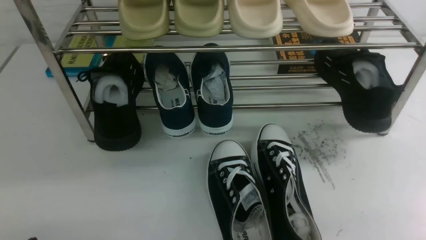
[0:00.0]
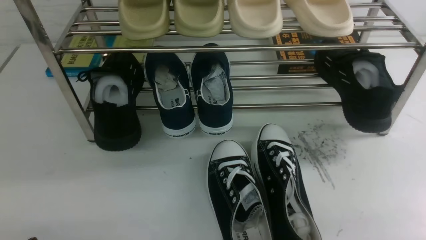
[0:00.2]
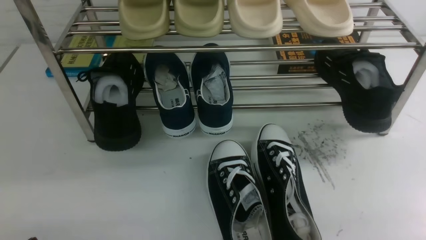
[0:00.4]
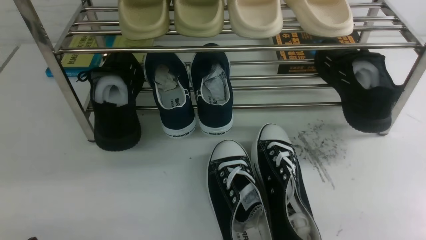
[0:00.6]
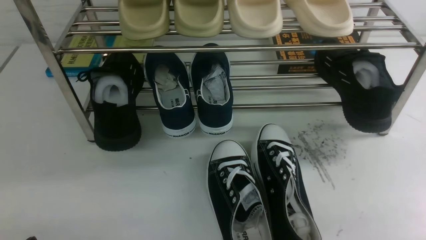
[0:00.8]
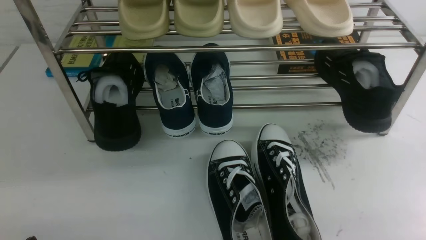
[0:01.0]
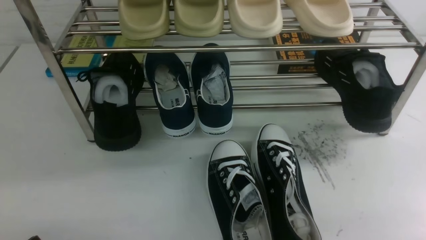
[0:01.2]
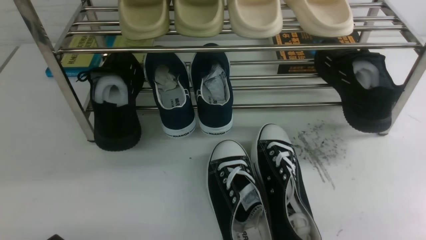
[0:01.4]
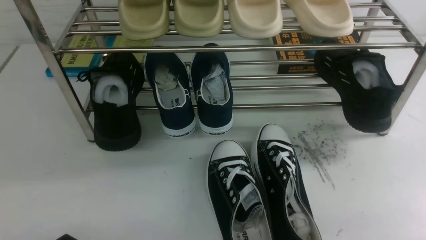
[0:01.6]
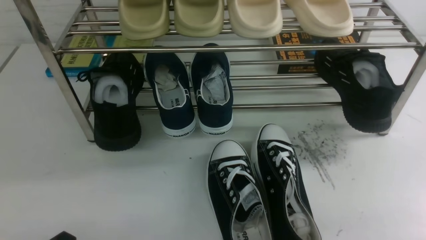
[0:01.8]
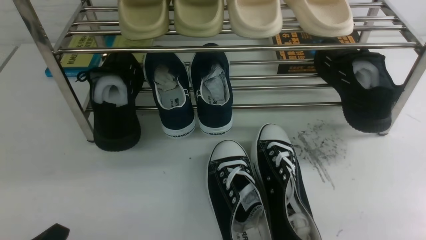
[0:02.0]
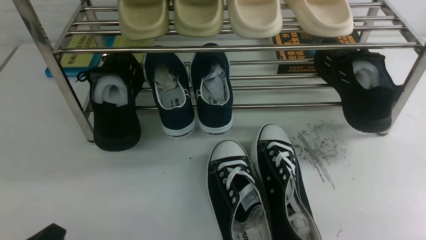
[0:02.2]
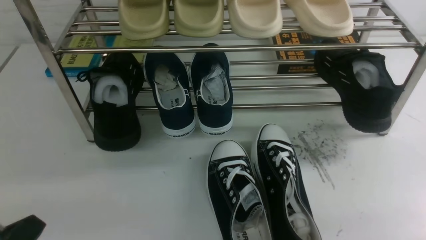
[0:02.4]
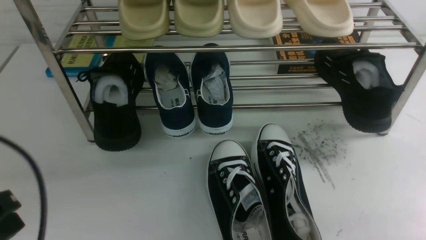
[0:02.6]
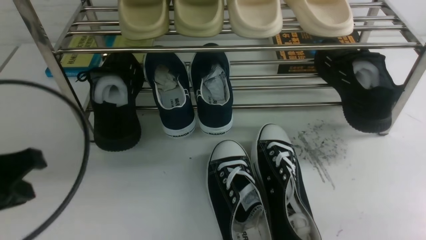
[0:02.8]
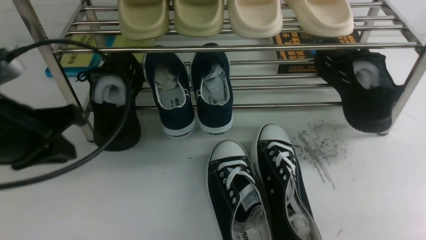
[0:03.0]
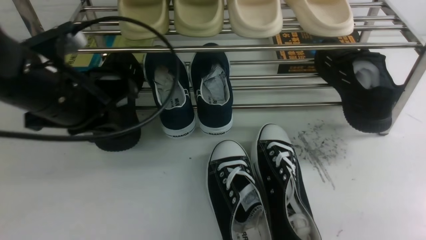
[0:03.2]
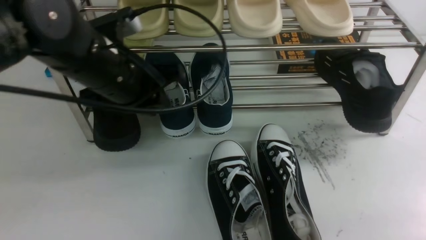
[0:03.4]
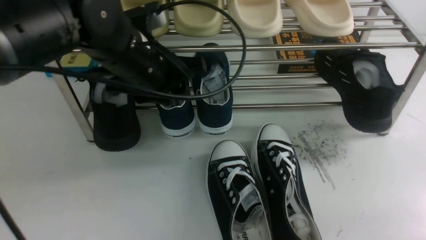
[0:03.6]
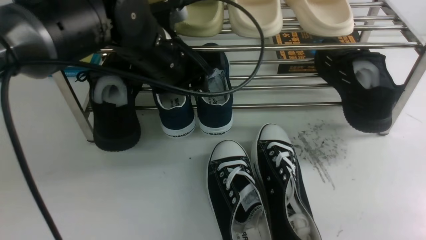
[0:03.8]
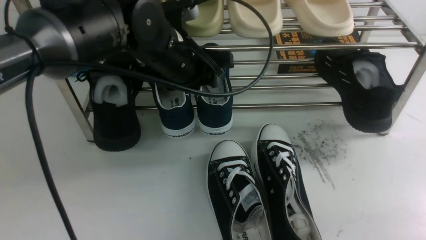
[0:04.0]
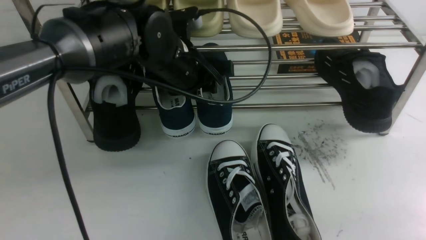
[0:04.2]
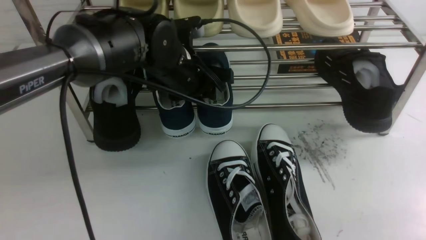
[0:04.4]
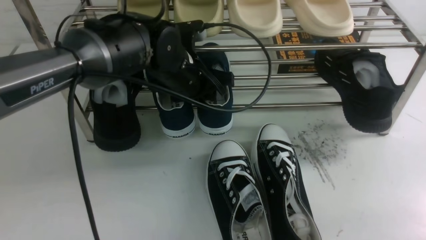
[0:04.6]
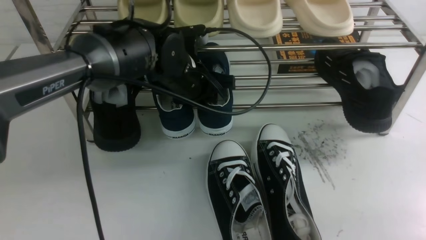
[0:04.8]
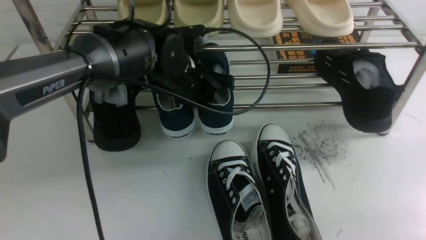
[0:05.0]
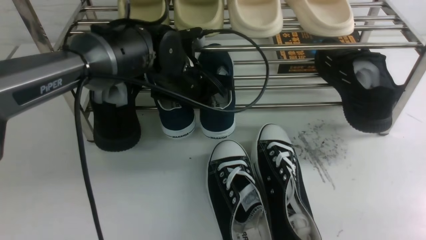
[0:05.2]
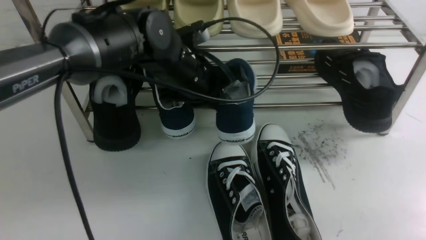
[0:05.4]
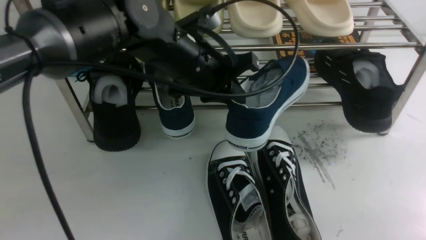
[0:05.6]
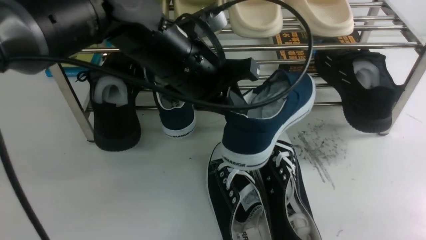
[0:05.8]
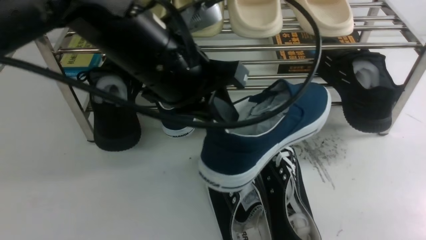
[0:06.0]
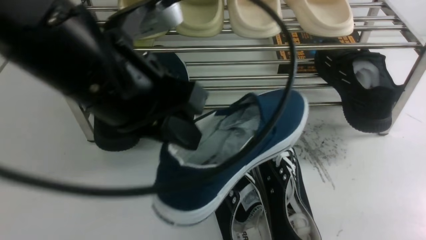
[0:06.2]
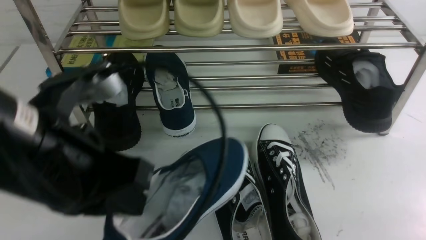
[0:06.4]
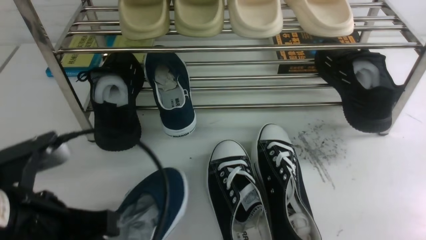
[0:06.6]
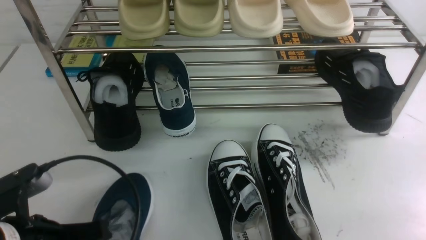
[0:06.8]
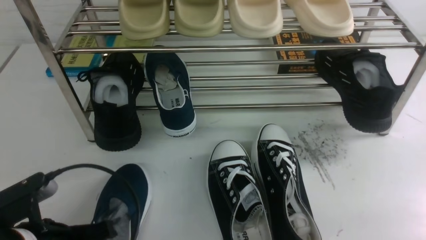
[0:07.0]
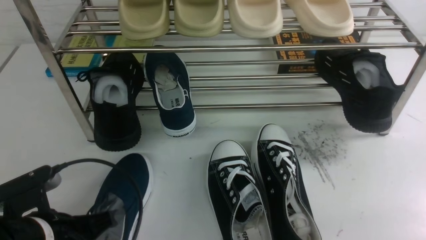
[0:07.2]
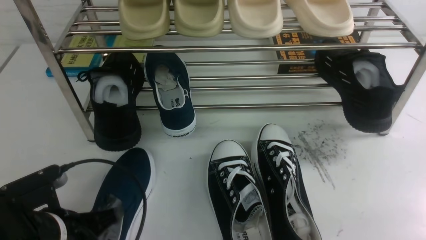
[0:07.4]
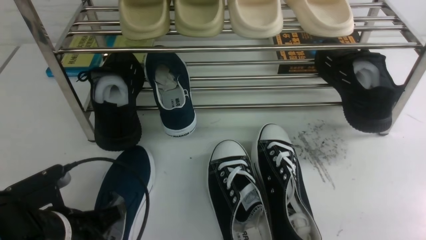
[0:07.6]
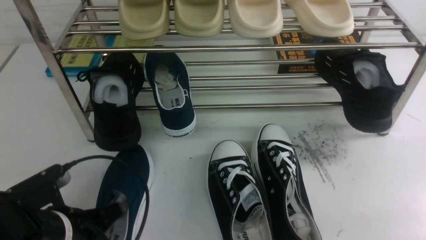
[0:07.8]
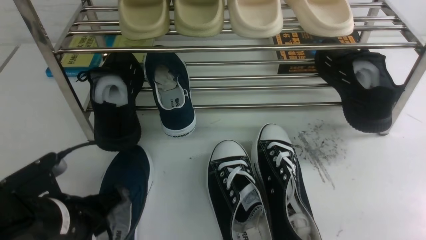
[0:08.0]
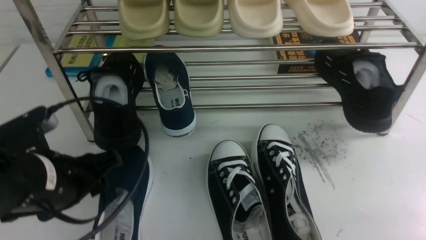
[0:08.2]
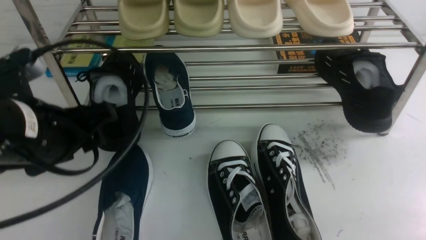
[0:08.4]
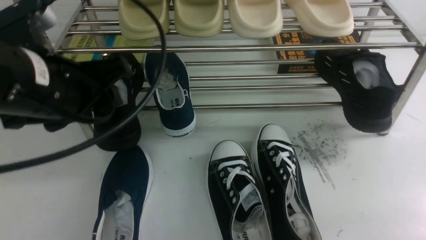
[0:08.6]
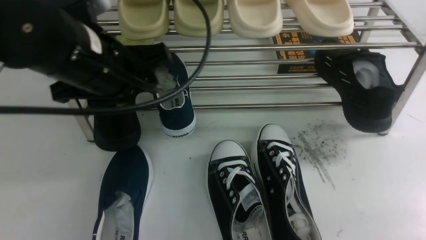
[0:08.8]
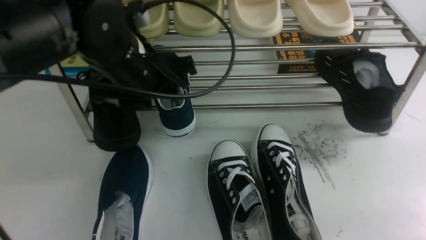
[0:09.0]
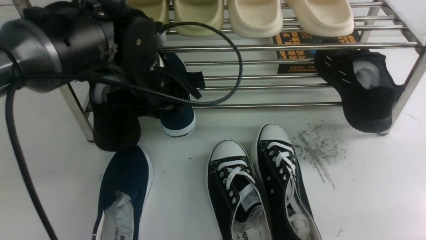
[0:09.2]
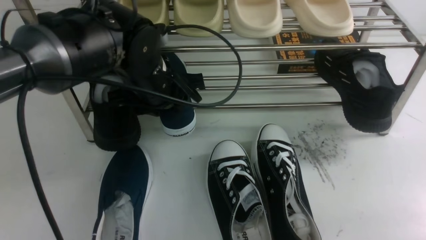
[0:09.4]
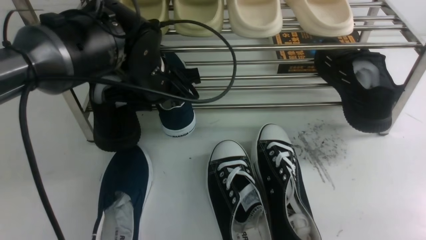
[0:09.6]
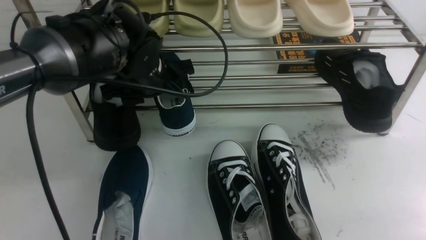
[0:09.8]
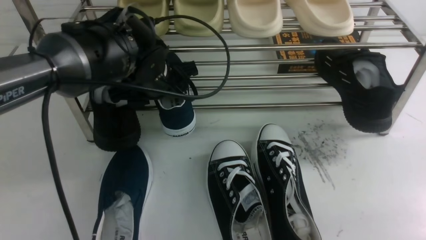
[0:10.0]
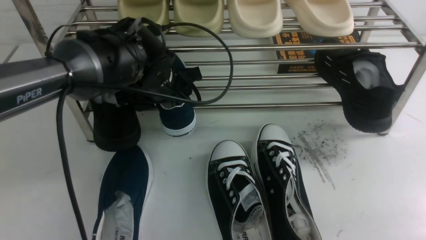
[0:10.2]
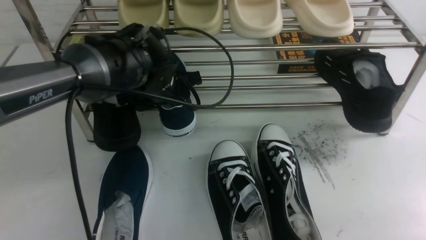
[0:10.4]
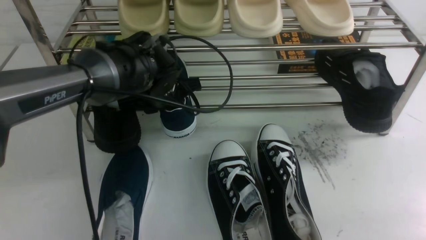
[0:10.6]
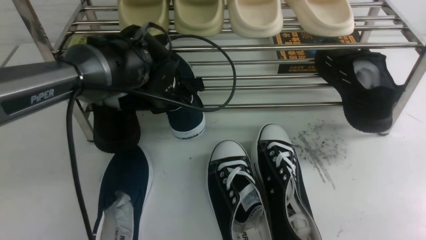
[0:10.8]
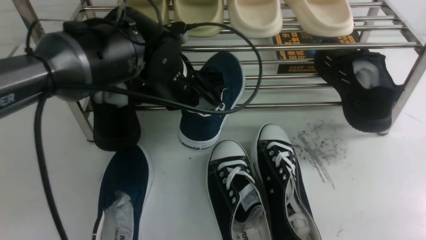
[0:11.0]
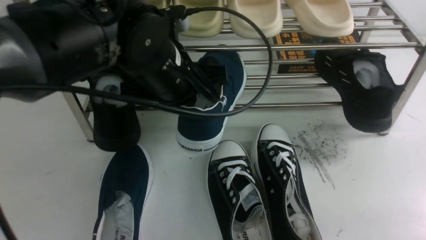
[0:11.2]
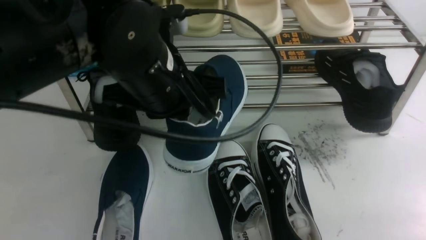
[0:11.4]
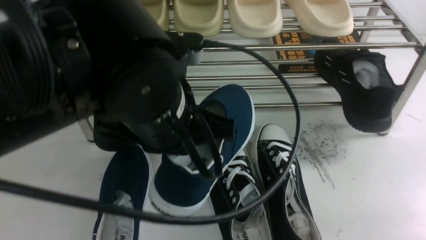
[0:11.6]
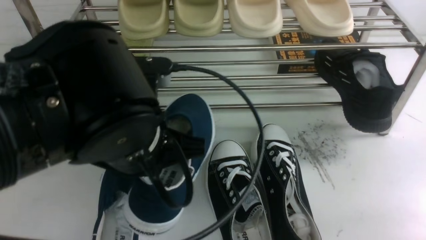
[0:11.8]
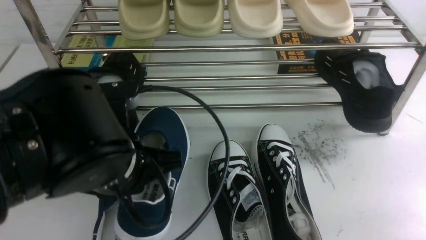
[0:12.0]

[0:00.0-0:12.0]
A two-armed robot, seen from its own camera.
Step, 0:00.0 to 0:05.6: use the left arm to clamp a shoe in the middle of the shoe rack.
Step, 0:05.8 to 0:08.2: Use your left arm to remove the clamped shoe from the shoe rack and put it down.
Step, 0:08.4 to 0:11.0: use the left arm to clamp a shoe on the left side of the shoe rack.
0:01.6 to 0:03.0: The left gripper heads upward and forward, covering approximately 20 cm.
0:03.0 to 0:04.4: The left gripper shifts some 20 cm to the right and forward, and opens its fingers.
0:04.4 to 0:06.0: The left gripper shifts roughly 15 cm backward and upward, and closes up.
0:06.0 to 0:07.6: The left gripper shifts approximately 25 cm downward, to the left and backward.
0:07.6 to 0:09.0: The left gripper goes about 20 cm upward, forward and to the right, and opens.
0:09.0 to 0:10.4: The left gripper heads downward and forward, covering approximately 10 cm.
0:10.4 to 0:12.0: The left gripper travels backward by roughly 20 cm, and closes up.

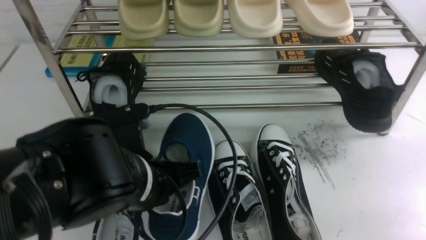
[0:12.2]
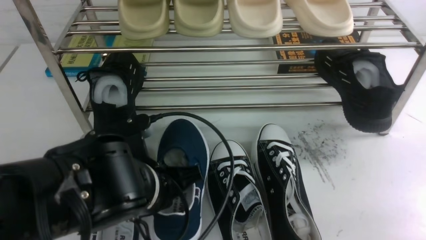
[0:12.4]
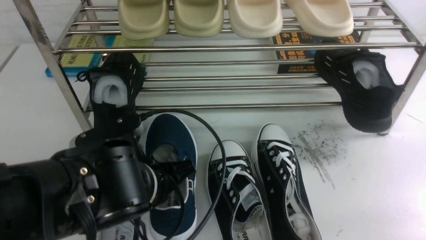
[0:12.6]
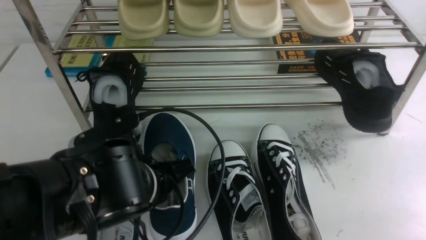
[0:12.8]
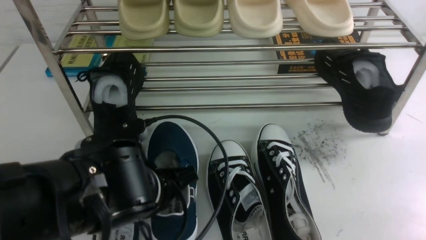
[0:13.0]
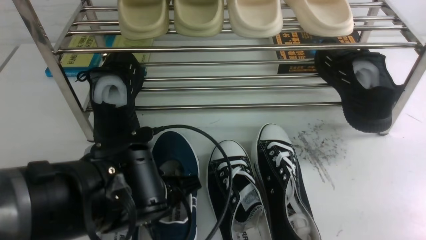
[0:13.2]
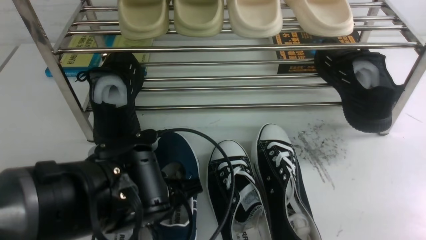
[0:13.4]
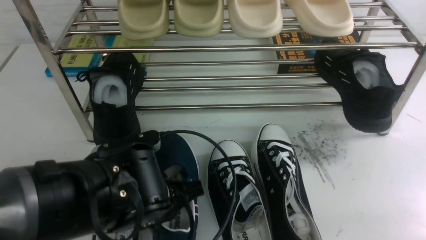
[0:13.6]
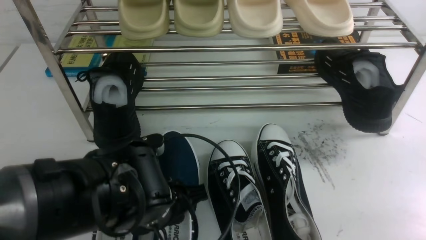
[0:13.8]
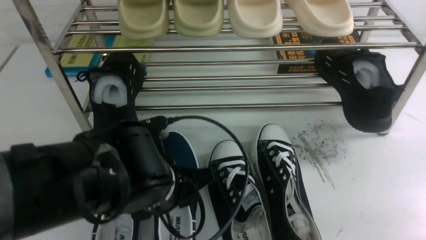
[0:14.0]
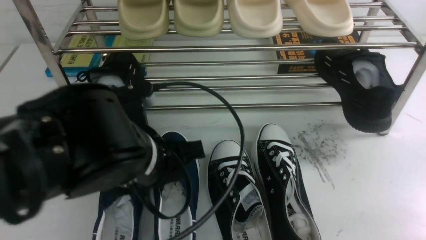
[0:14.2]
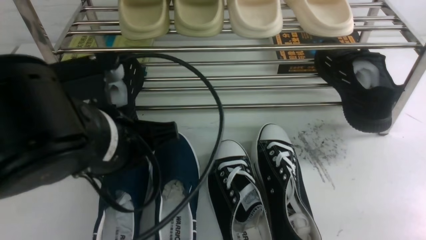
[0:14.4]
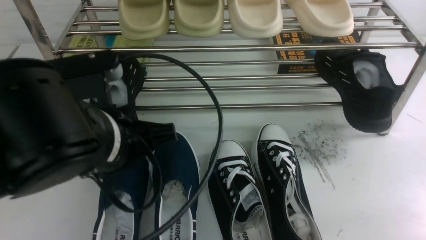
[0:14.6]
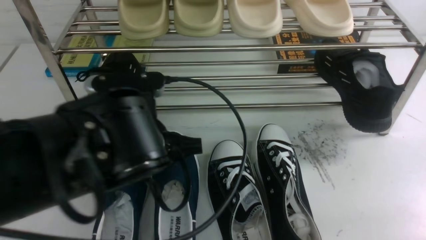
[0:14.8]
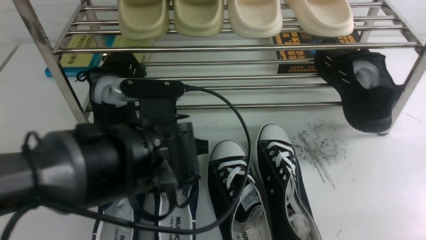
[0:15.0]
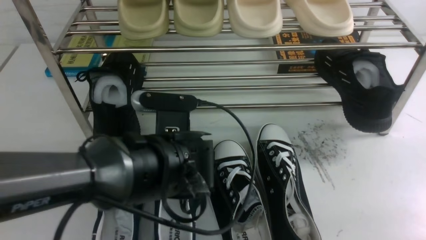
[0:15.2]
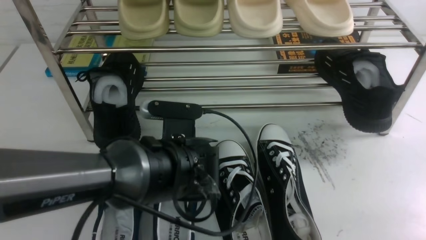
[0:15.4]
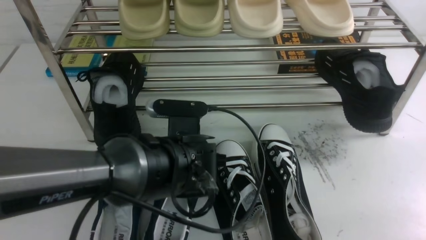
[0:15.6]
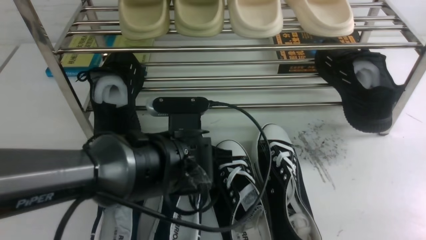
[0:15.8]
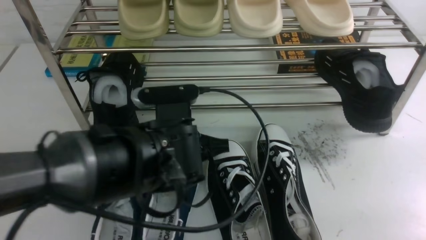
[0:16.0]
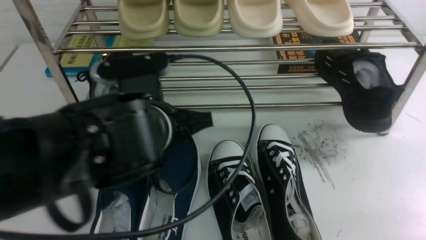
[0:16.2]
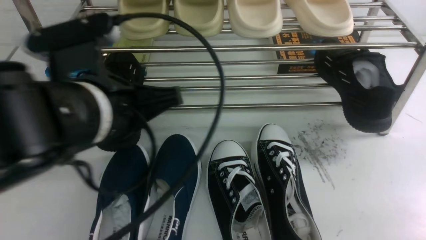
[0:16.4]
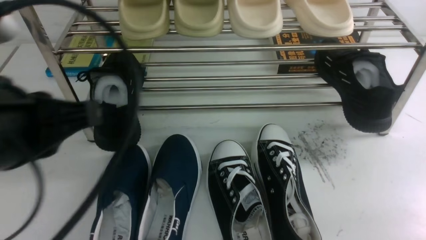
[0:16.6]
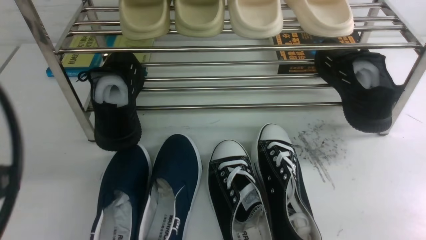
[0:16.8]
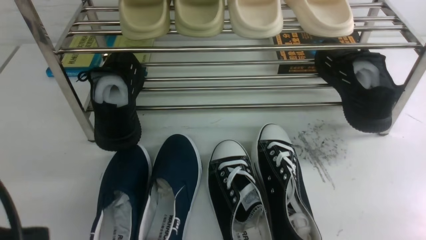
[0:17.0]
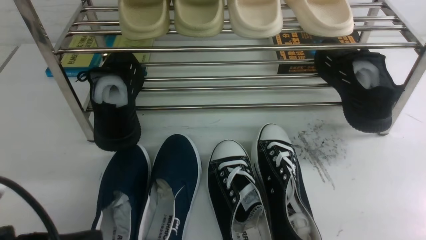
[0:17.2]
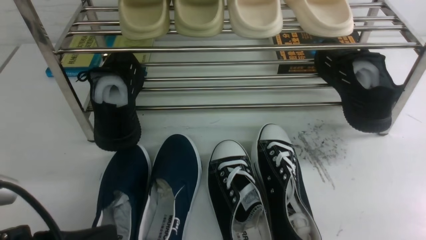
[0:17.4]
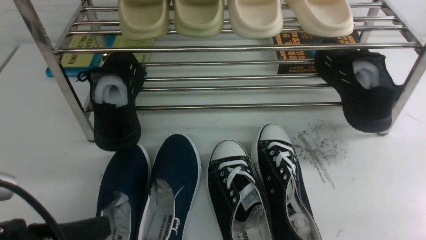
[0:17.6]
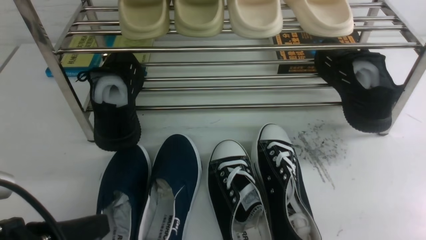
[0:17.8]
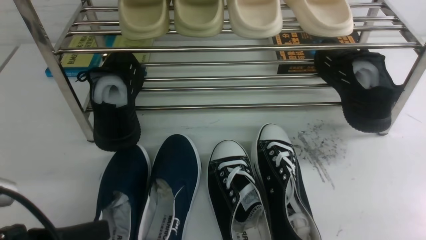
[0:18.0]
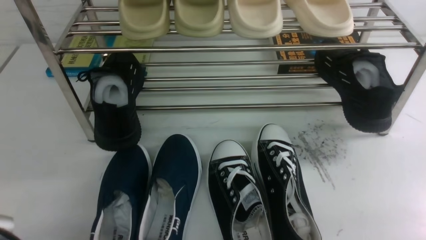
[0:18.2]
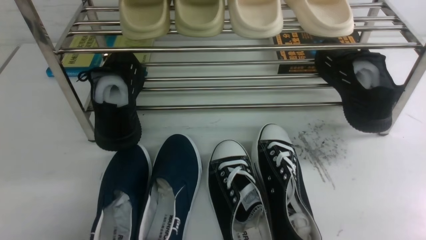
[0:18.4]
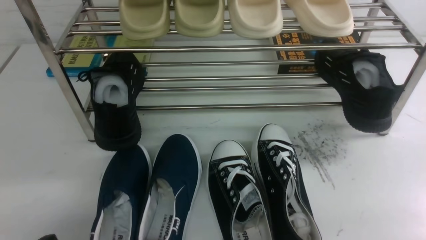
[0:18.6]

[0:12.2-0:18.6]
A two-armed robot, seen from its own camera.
Step, 0:12.2 to 0:14.0: Use your left arm to remove the clamped shoe from the shoe rack and put it down.
0:12.2 to 0:13.8: The left gripper opens.
0:13.8 to 0:15.4: The left gripper travels forward by about 5 cm, moves about 10 cm upward and comes back, and closes.
0:15.4 to 0:17.0: The left gripper moves backward, to the left and upward, about 30 cm.
0:17.0 to 0:18.6: The left gripper shifts some 15 cm downward.
